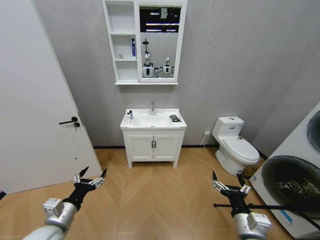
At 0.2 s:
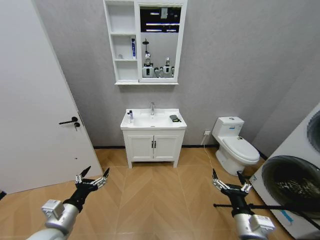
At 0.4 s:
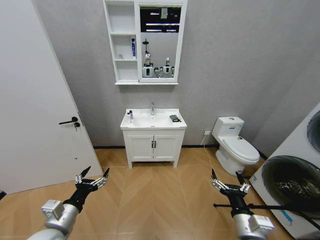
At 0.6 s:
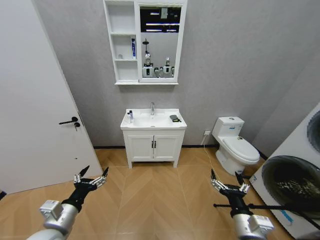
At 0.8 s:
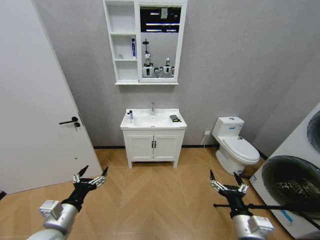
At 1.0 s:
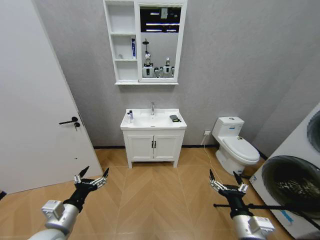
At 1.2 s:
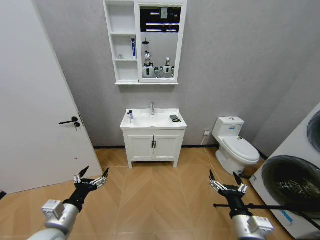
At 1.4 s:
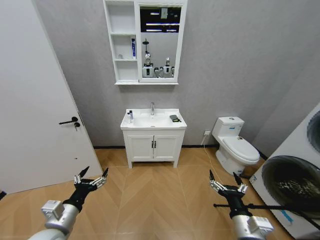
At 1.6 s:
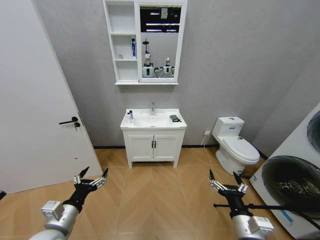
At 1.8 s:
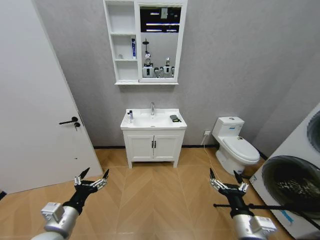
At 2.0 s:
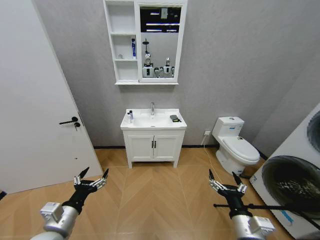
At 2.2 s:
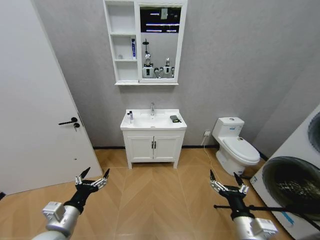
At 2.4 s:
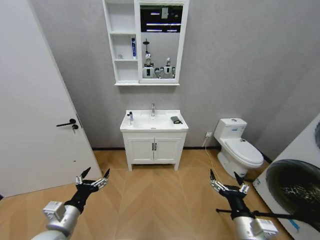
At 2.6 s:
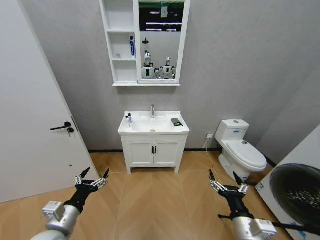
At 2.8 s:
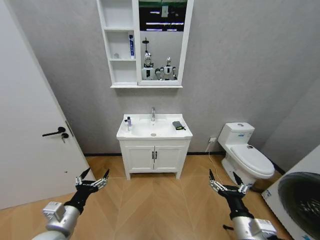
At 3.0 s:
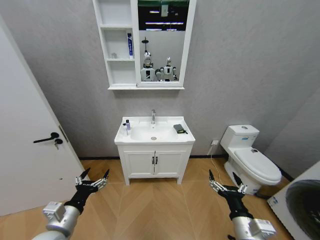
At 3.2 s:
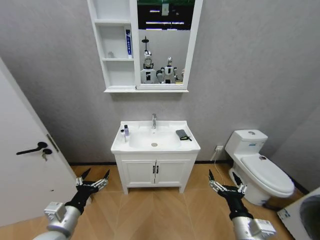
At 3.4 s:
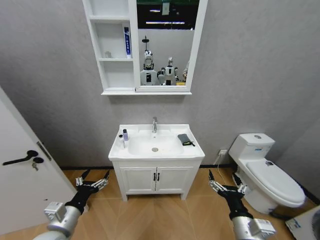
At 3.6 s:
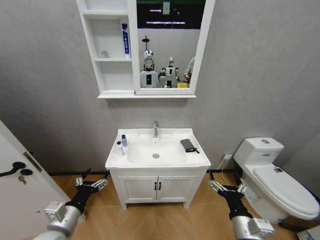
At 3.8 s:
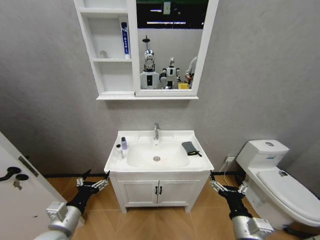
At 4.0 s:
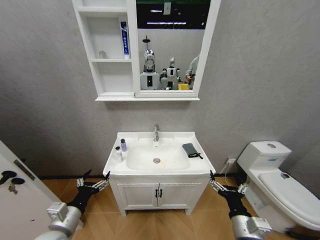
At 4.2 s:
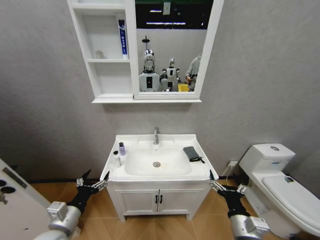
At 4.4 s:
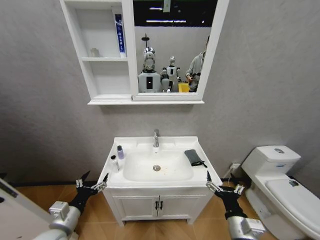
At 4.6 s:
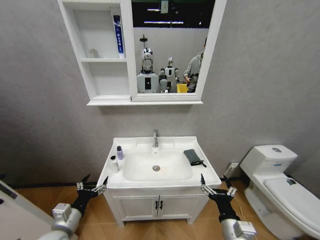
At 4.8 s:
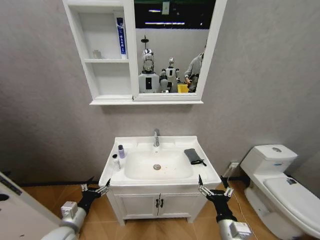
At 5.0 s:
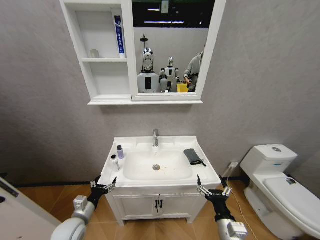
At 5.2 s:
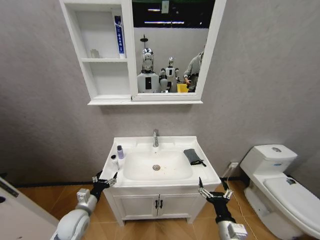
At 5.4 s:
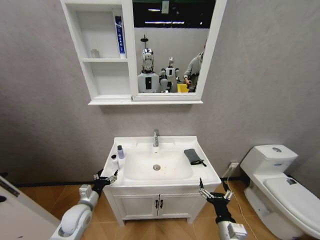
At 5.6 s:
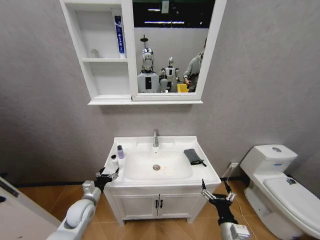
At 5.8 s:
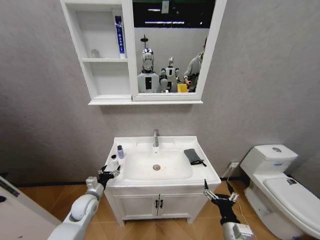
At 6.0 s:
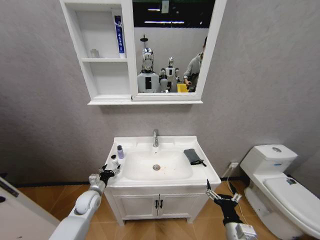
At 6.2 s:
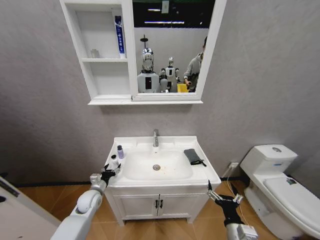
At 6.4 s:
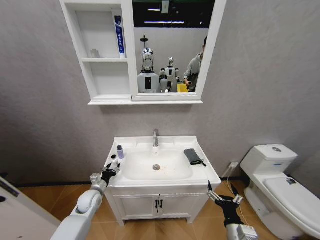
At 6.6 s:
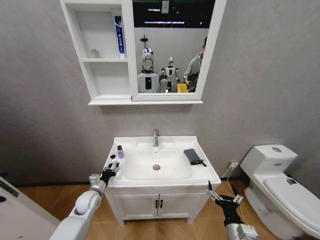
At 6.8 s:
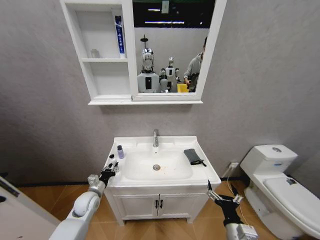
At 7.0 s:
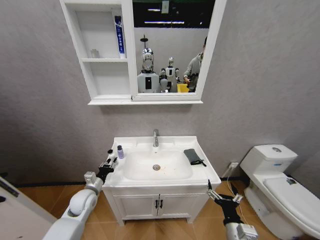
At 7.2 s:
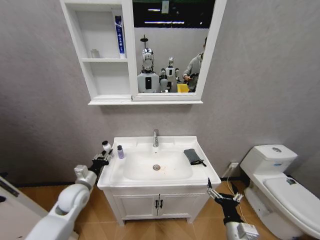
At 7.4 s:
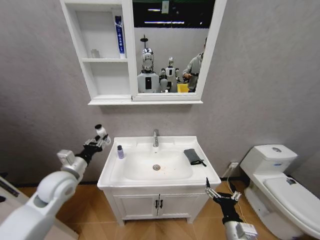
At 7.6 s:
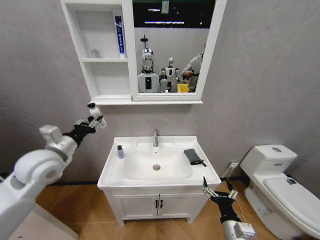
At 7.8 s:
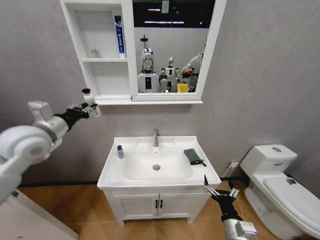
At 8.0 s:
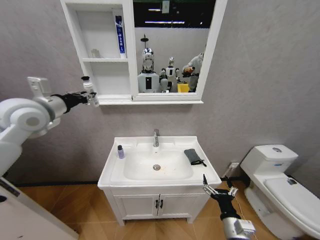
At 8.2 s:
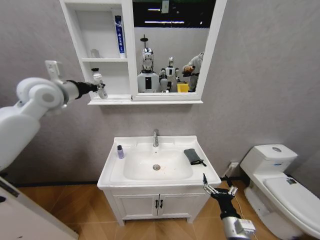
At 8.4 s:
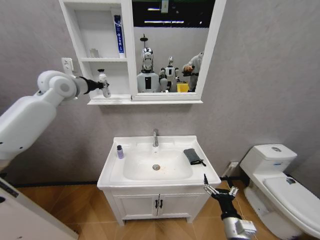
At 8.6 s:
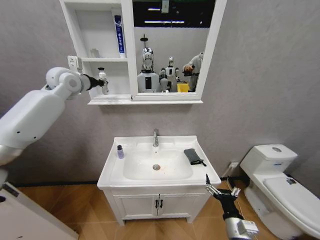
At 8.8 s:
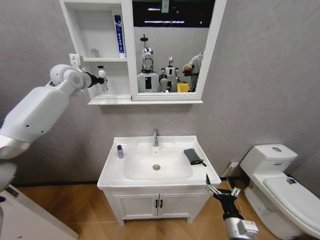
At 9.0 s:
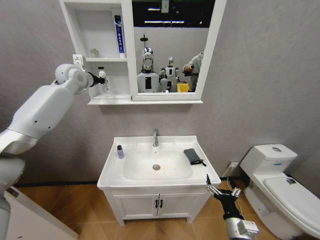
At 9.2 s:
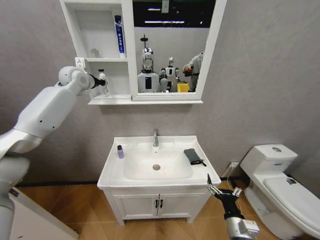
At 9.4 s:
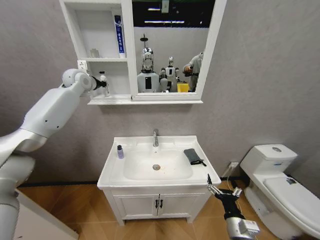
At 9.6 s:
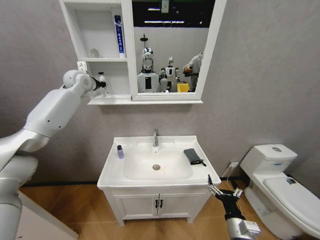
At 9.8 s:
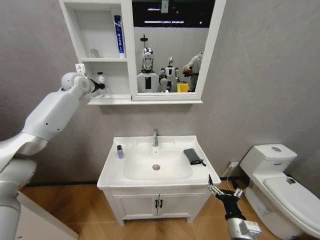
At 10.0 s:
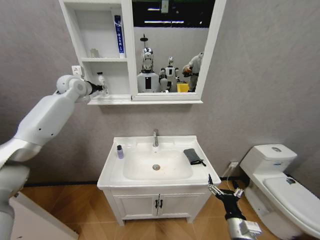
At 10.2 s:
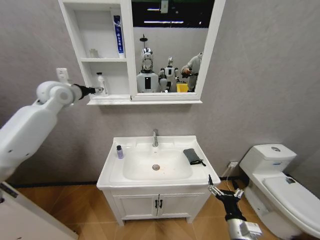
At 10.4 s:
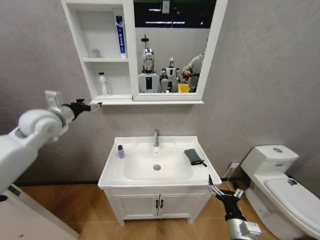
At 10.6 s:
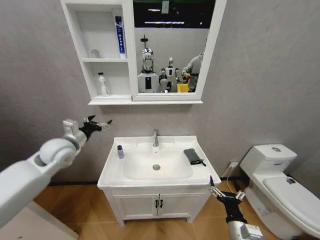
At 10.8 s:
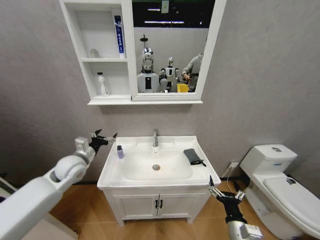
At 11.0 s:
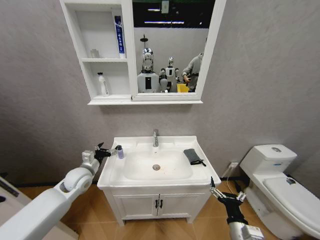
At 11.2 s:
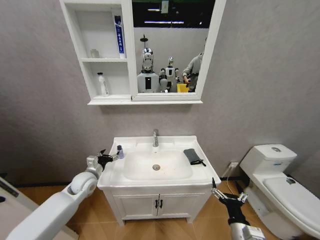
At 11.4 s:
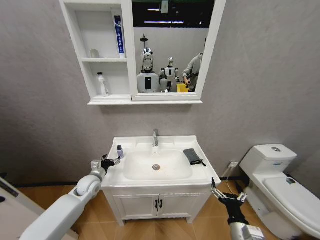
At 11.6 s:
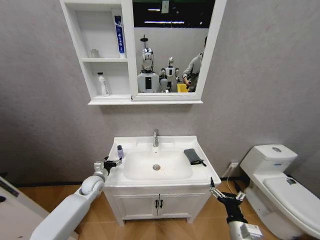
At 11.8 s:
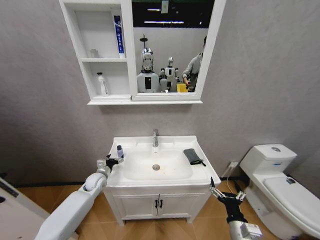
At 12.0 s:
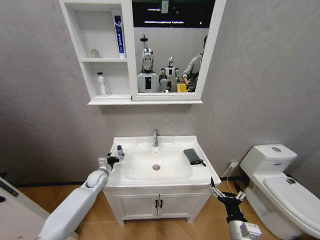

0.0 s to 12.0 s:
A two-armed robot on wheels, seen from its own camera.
Task of the whole recording: Move facial cleanser and shampoo from washbasin to cabinet, then wipe washbasin with towel.
4.4 to 6.0 s: The right gripper shifts roughly 5 cm downward. Meanwhile the left gripper goes about 20 cm forward and downward.
6.0 to 7.6 s: The left gripper shifts approximately 30 cm upward, and closes.
7.6 to 9.0 s: The left gripper travels forward and upward by some 35 cm.
9.0 to 10.4 s: The left gripper moves backward and downward, some 20 cm, and opens its fingers.
10.4 to 12.0 s: The left gripper travels downward by roughly 35 cm.

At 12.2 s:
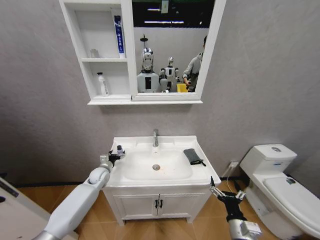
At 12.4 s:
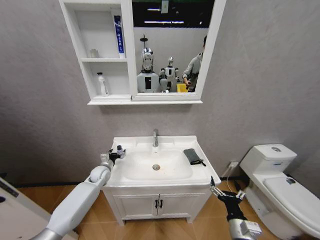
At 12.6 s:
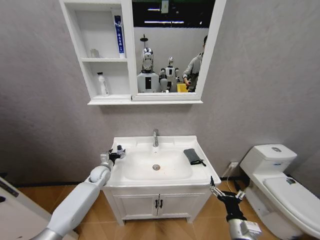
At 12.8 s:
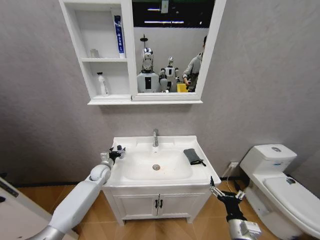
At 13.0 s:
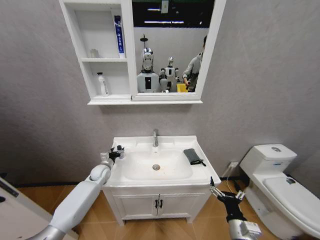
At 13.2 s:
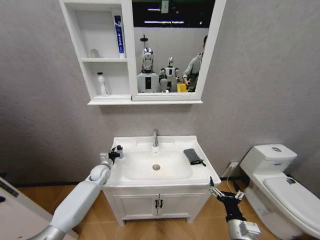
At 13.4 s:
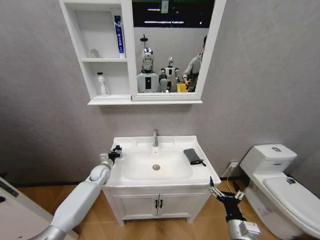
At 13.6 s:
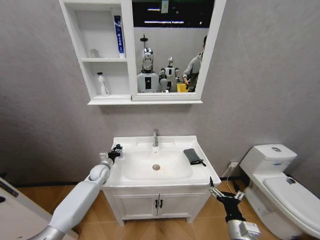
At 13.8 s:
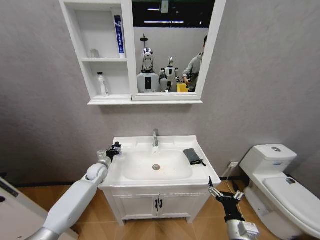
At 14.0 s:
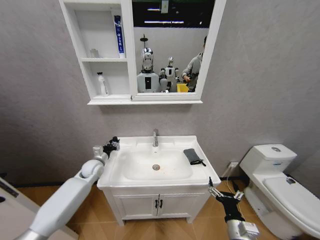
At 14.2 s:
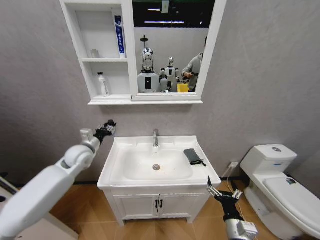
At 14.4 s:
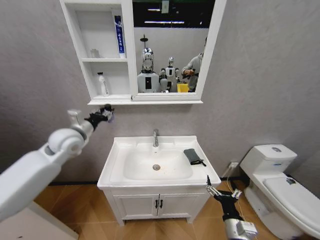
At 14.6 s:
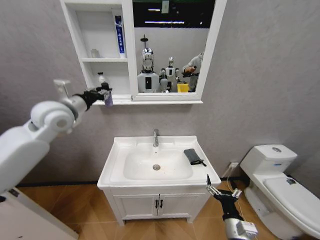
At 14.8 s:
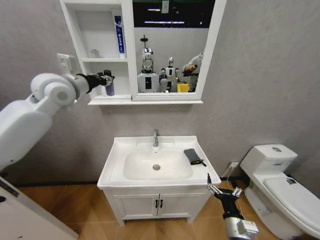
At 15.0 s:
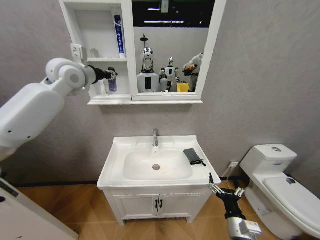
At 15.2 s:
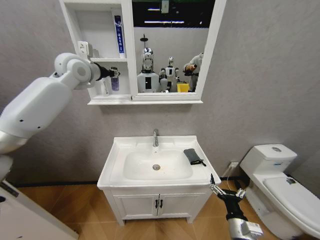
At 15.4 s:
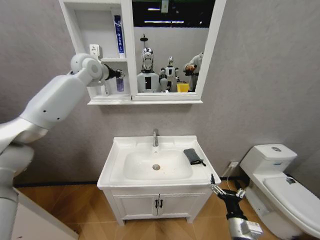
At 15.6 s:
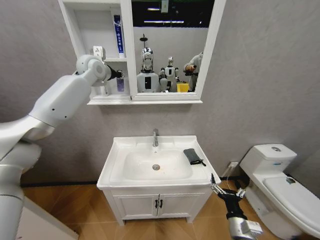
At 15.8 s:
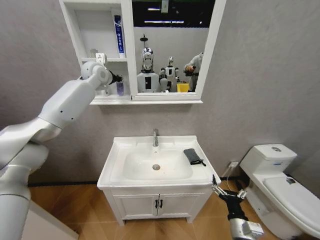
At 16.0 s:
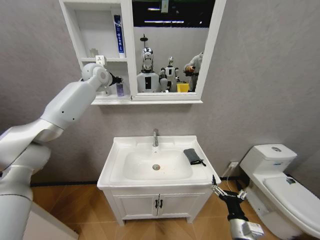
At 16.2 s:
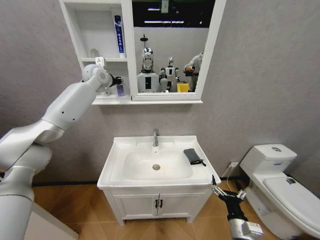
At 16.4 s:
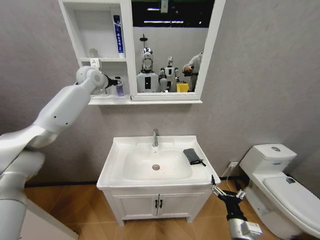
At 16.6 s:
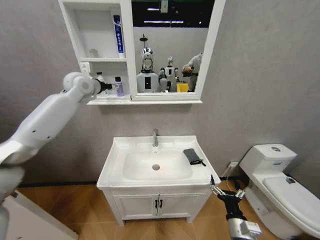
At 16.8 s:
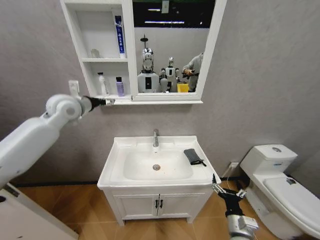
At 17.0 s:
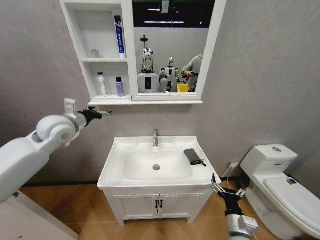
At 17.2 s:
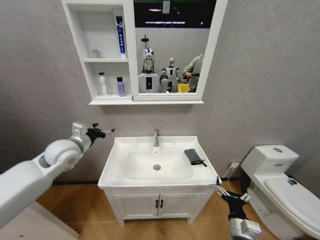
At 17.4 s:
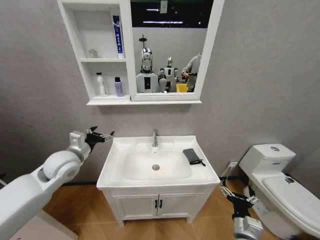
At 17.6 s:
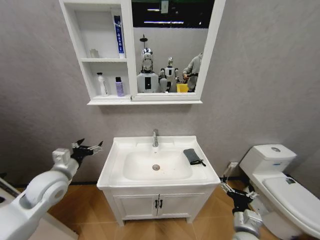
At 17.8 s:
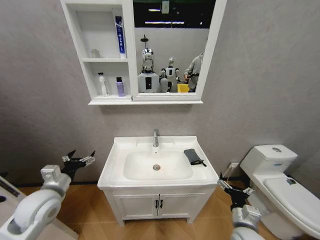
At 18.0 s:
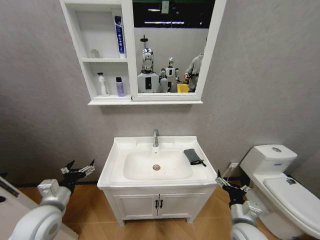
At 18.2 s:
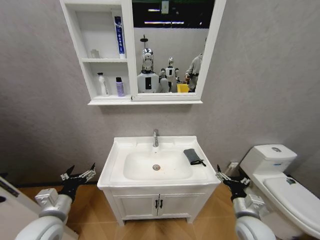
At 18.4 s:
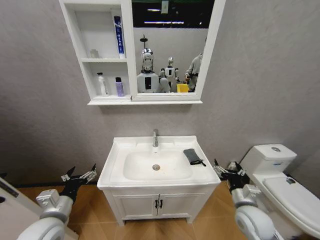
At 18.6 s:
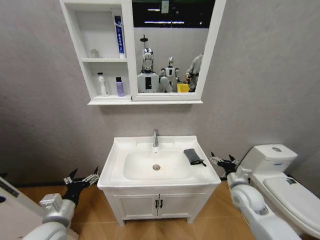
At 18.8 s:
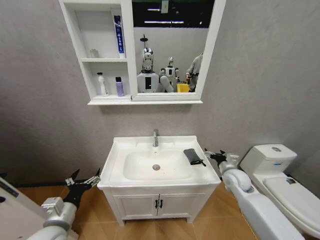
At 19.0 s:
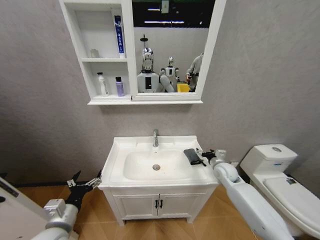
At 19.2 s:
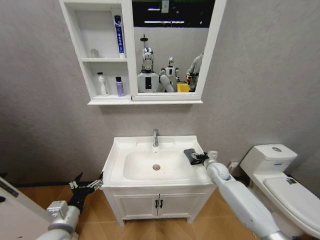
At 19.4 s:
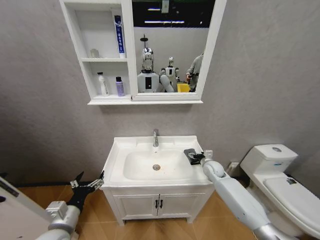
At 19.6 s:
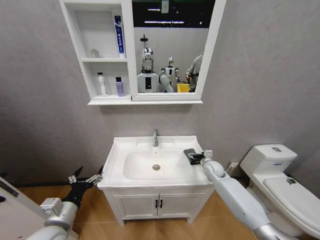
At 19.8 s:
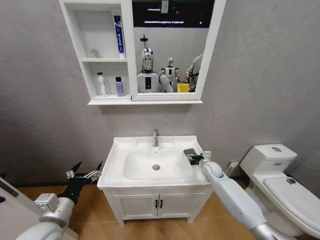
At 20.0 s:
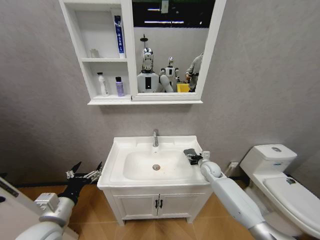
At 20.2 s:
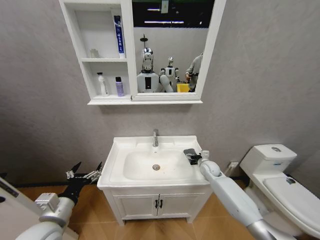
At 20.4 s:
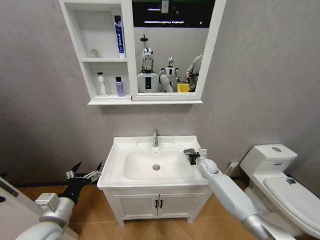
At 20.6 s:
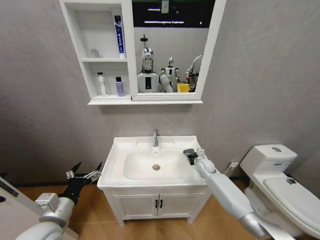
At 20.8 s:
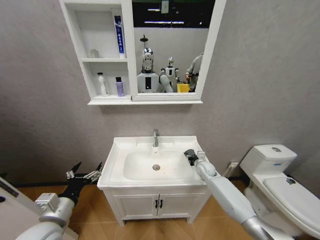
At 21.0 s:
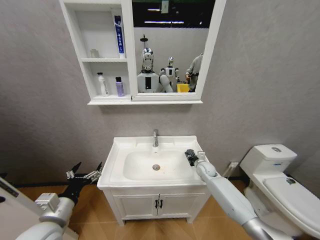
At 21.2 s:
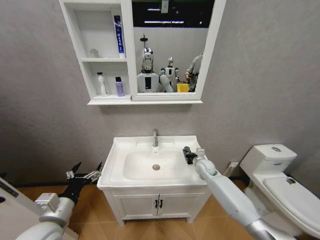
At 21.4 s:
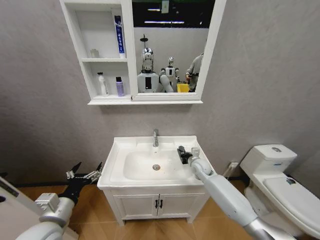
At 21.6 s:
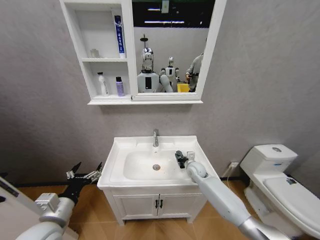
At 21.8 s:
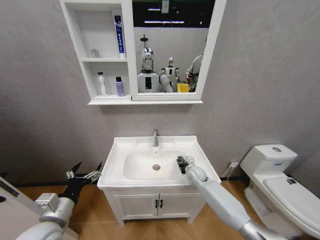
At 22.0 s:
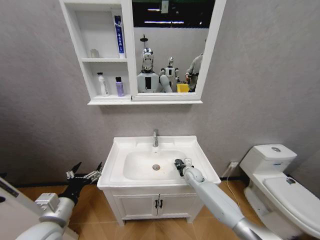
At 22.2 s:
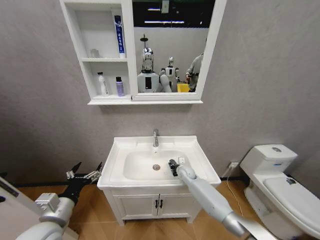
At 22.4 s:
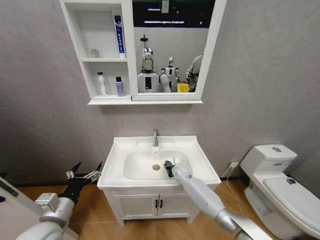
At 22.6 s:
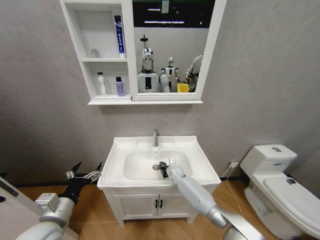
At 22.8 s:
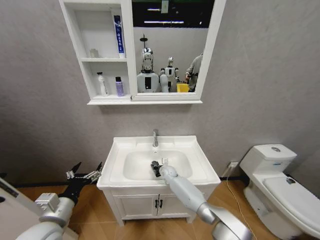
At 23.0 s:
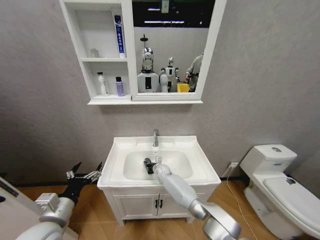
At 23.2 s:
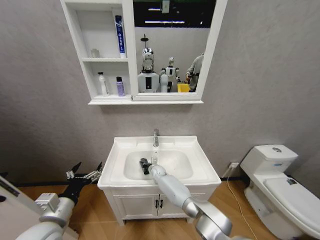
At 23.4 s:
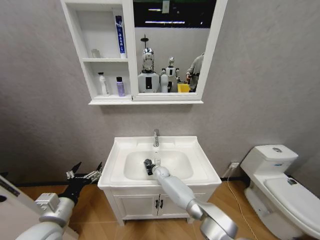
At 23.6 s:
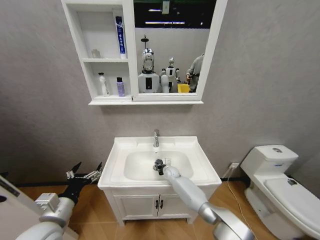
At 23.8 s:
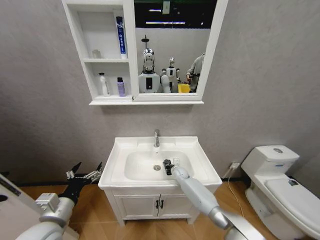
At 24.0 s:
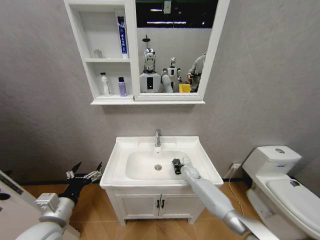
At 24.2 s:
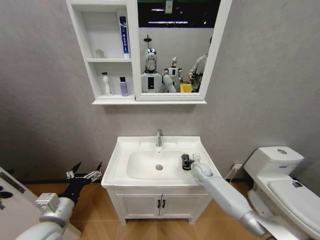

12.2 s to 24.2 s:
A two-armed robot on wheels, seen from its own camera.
Task of the whole recording: Move facial cleanser and shampoo from washbasin to cabinet, then wipe washbasin with towel.
12.2 to 13.8 s: The left gripper closes up.
13.8 to 15.2 s: The left gripper travels upward by roughly 50 cm.
15.2 to 16.6 s: The left gripper heads downward, covering roughly 5 cm, goes forward and returns, roughly 10 cm each way, and opens.
16.6 to 18.2 s: The left gripper is displaced backward and downward by approximately 50 cm, while the right gripper moves forward, some 5 cm.
18.2 to 19.8 s: The right gripper heads forward, covering approximately 25 cm.
19.8 to 21.2 s: The right gripper closes.
21.2 to 22.6 s: The right gripper moves to the left and downward, approximately 20 cm.
22.6 to 24.2 s: The right gripper goes roughly 15 cm to the right.
